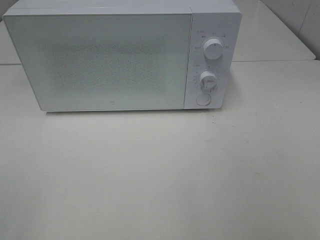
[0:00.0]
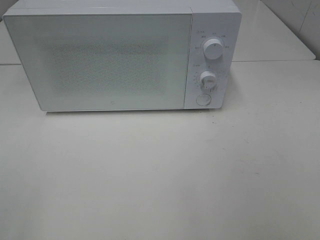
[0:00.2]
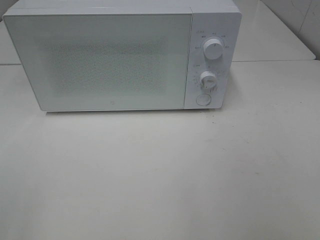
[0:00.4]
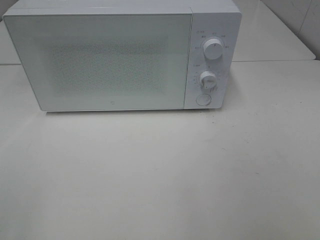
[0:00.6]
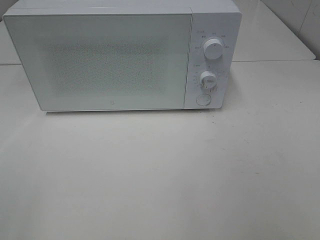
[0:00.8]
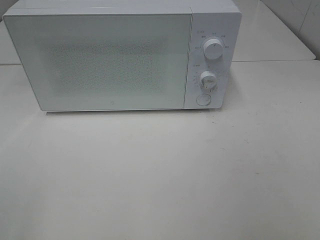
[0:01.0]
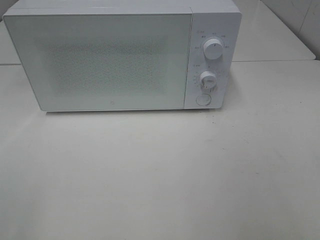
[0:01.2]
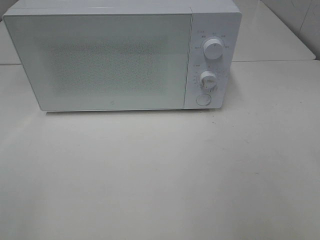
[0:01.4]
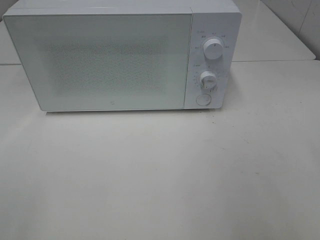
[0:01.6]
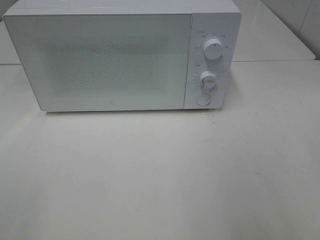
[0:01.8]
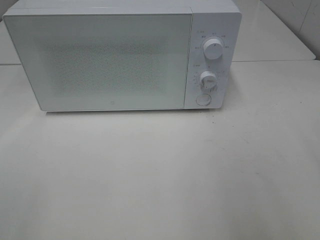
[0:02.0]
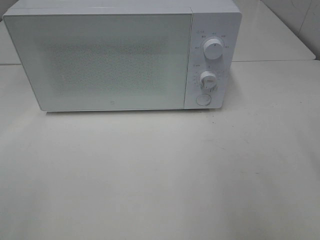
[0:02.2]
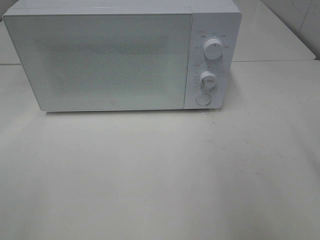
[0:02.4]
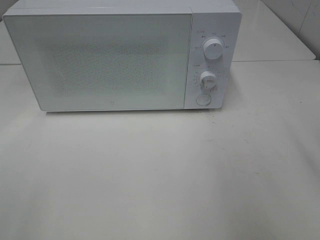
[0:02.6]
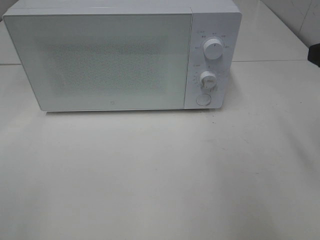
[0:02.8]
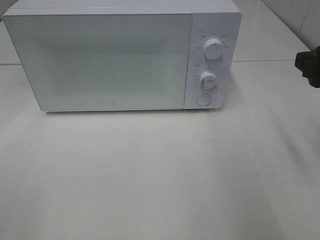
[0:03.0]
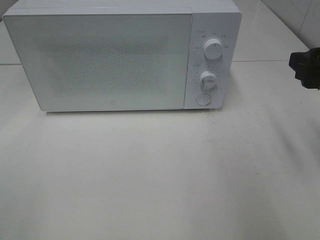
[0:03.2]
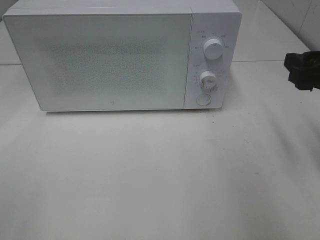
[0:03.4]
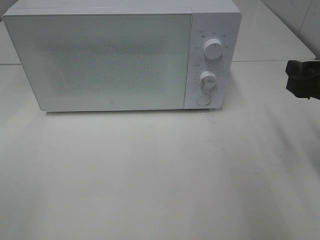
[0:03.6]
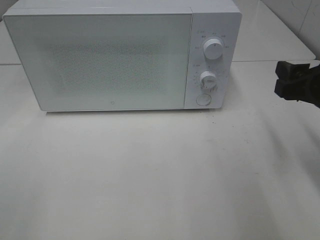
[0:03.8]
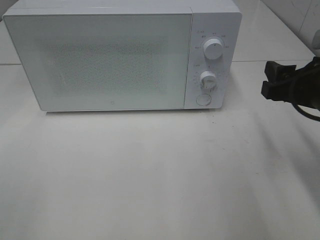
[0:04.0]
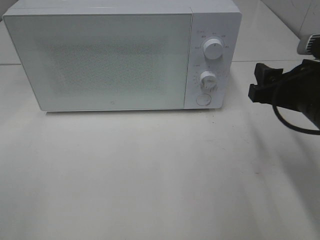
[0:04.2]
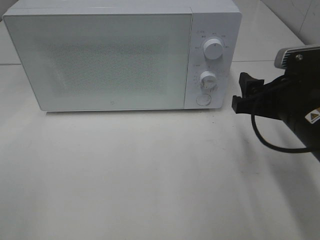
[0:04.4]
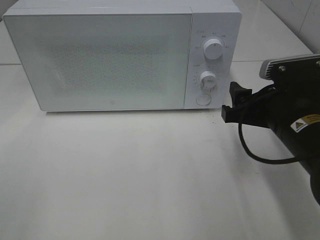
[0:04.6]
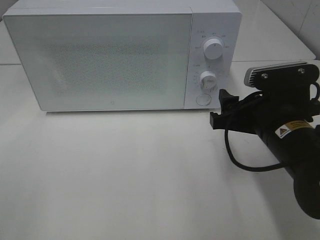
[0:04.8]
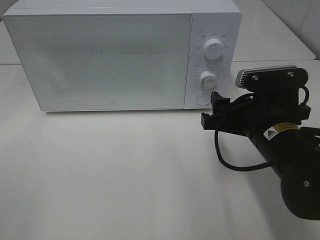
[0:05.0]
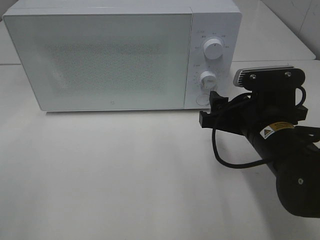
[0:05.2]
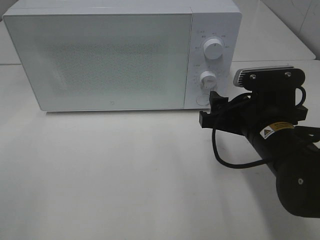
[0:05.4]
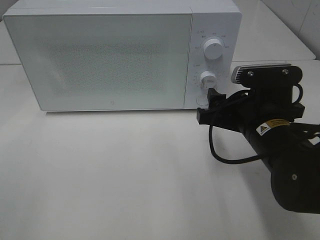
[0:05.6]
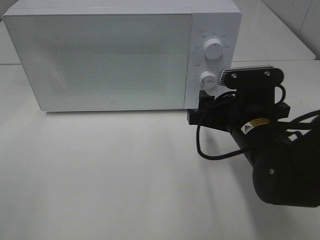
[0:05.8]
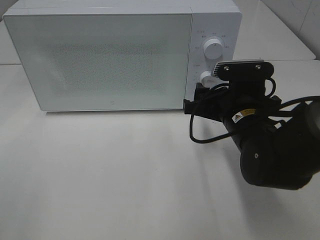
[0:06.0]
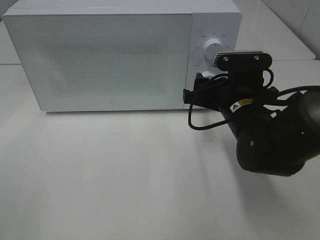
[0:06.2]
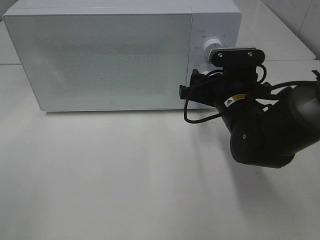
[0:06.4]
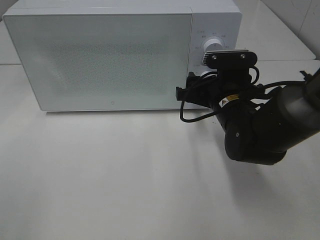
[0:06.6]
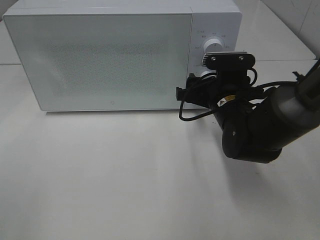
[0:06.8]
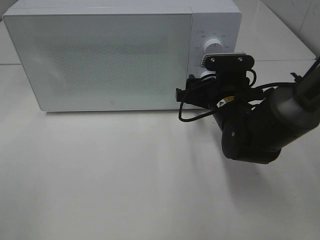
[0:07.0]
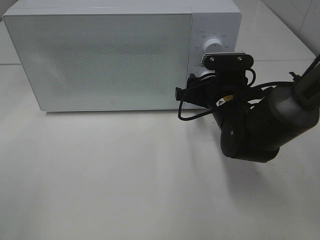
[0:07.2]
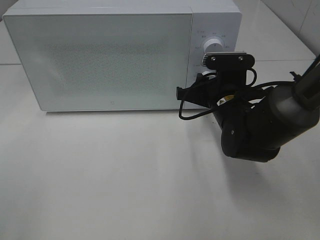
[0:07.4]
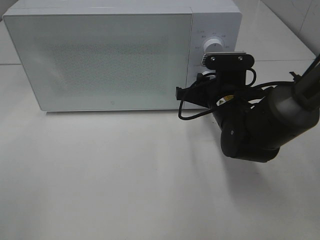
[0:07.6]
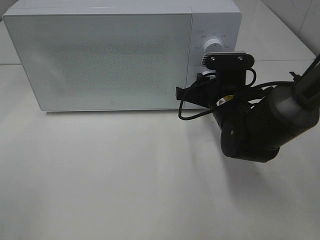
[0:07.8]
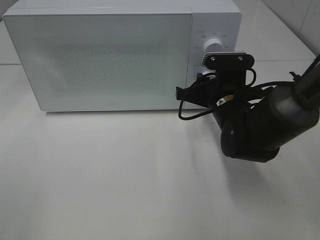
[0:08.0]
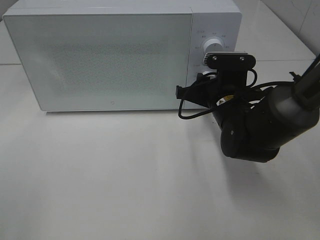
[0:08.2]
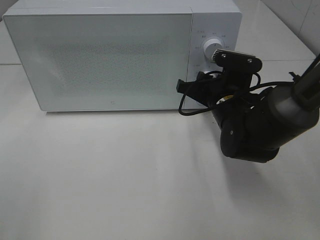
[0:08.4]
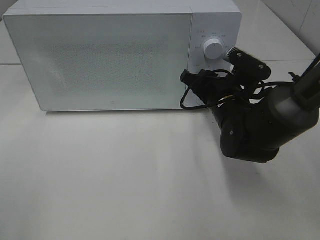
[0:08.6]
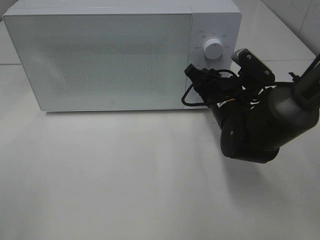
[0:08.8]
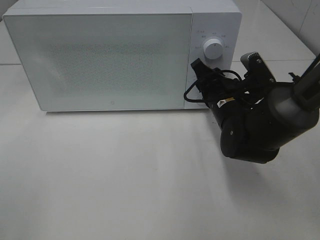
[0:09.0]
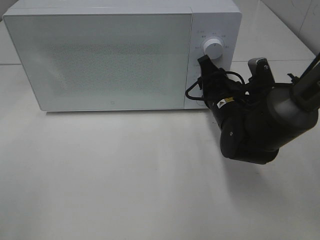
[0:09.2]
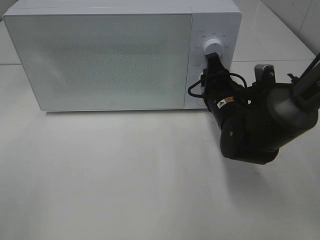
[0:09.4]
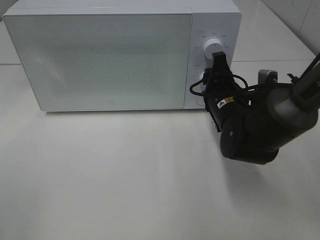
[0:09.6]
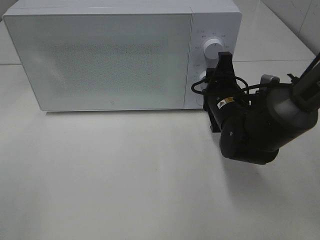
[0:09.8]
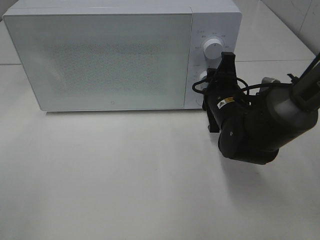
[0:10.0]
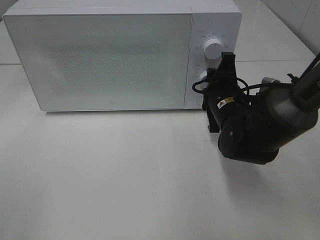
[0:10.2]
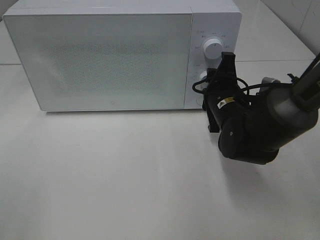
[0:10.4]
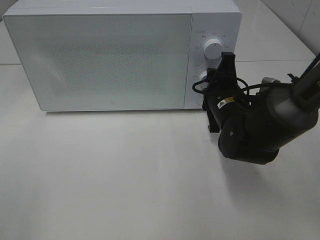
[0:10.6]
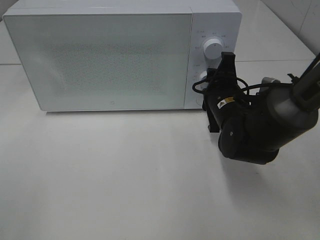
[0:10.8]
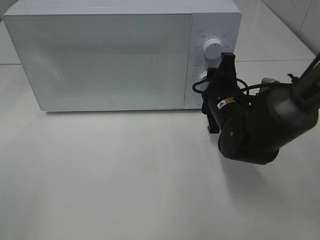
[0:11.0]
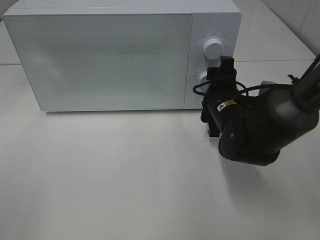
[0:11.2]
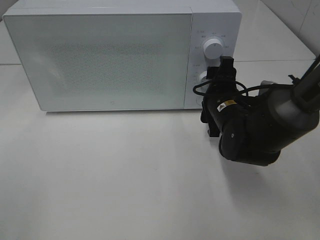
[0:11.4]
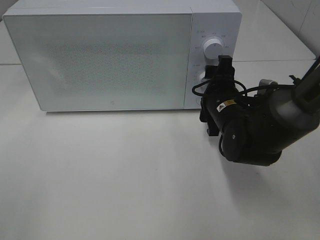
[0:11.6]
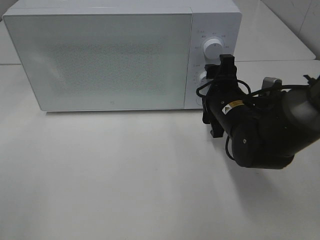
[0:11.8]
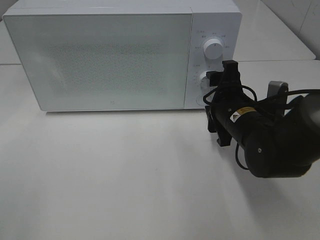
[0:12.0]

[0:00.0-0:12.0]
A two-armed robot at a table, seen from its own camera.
Task of the whole recording: Heat Sandwich.
Step, 0:00.0 to 0:11.6: Right hand: twist timer button.
0:01.6 to 0:03.0: The right gripper goes some 15 cm forward and downward.
0:03.0 to 0:04.4: The right gripper shifts approximately 10 cm downward and to the left.
0:04.4 to 0:06.0: The right gripper travels to the left by about 5 cm.
0:06.0 to 0:07.6: The right gripper is displaced forward by about 5 cm, and closes its fingers.
0:10.4 to 0:12.0: The right gripper opens up.

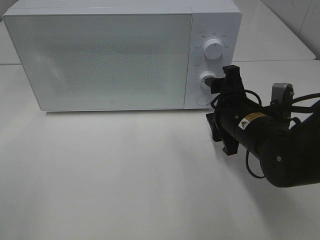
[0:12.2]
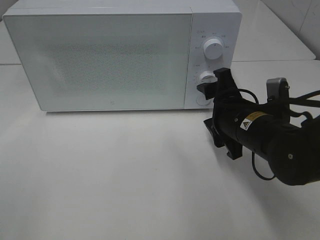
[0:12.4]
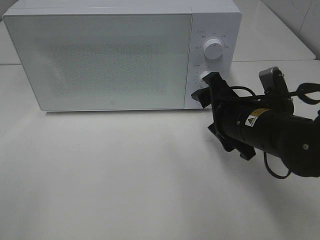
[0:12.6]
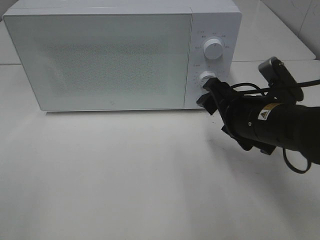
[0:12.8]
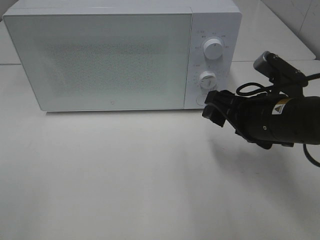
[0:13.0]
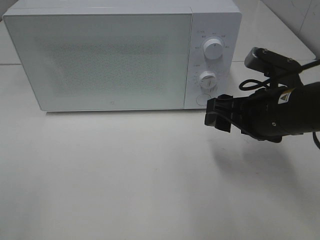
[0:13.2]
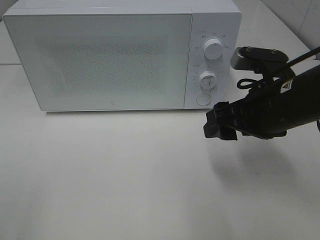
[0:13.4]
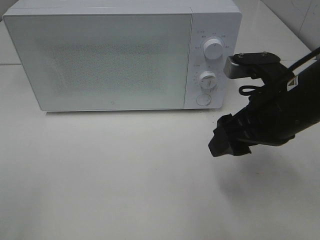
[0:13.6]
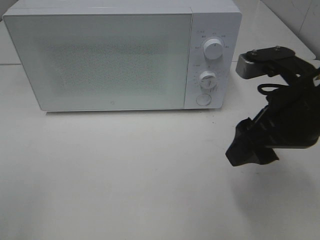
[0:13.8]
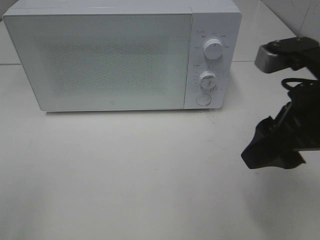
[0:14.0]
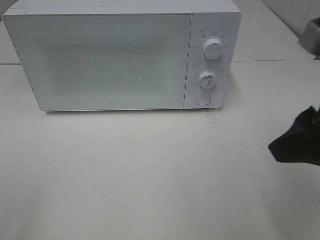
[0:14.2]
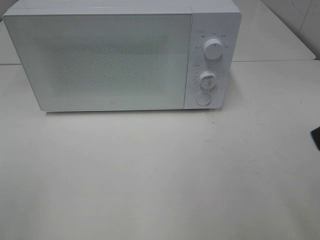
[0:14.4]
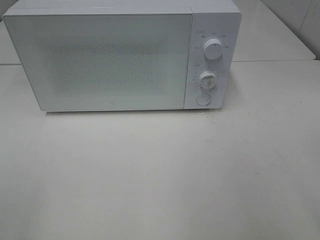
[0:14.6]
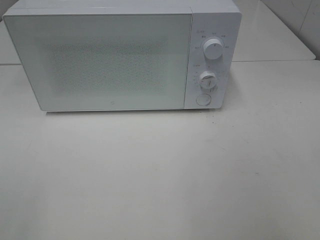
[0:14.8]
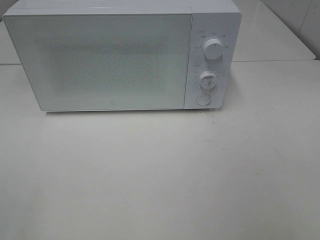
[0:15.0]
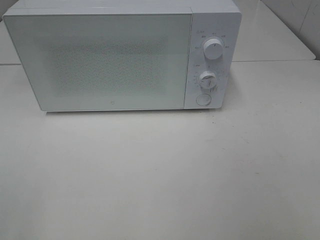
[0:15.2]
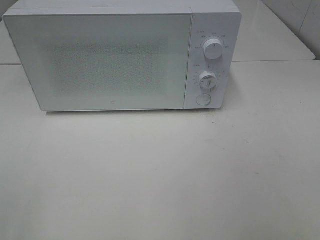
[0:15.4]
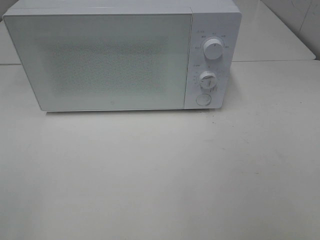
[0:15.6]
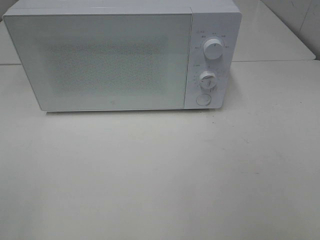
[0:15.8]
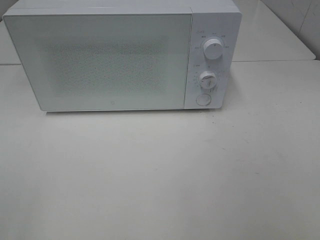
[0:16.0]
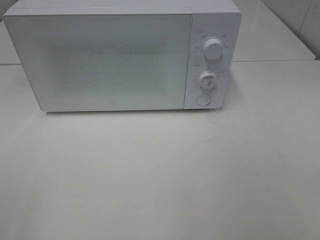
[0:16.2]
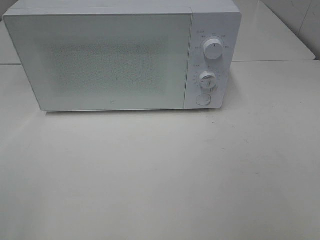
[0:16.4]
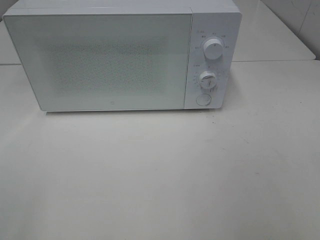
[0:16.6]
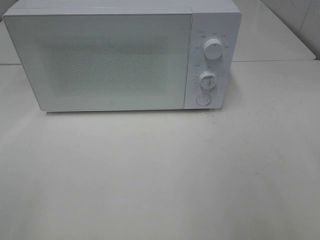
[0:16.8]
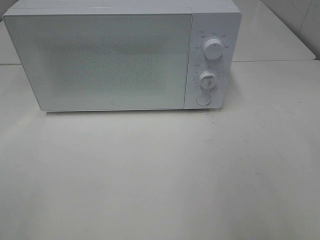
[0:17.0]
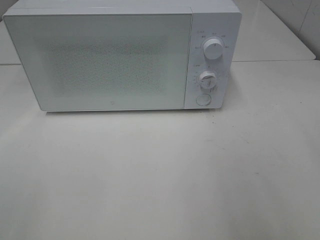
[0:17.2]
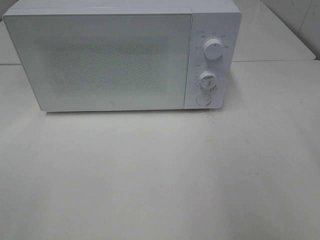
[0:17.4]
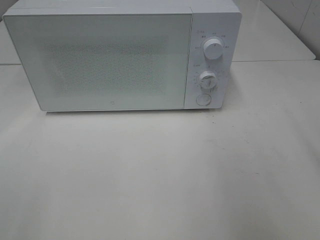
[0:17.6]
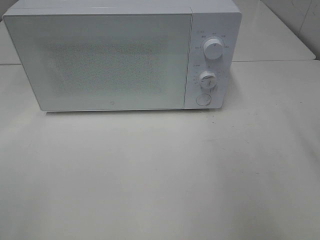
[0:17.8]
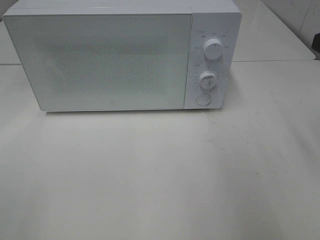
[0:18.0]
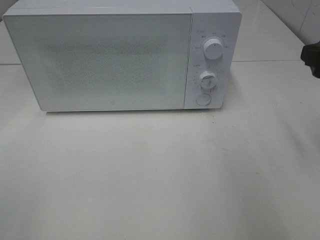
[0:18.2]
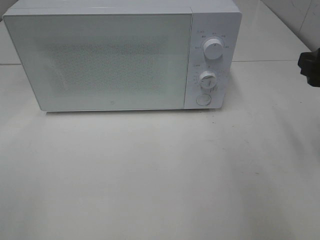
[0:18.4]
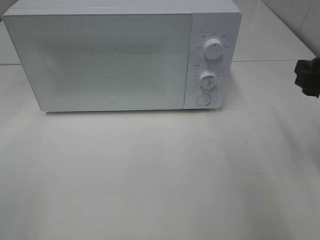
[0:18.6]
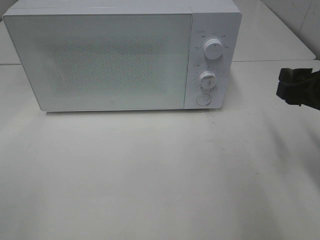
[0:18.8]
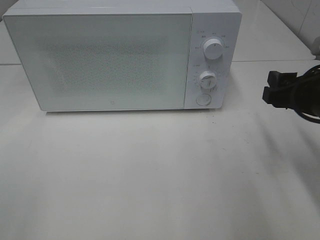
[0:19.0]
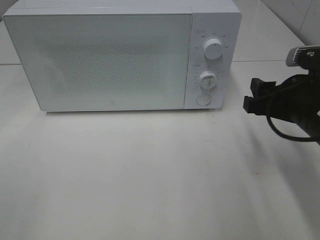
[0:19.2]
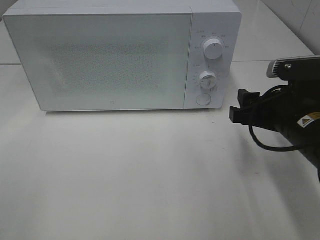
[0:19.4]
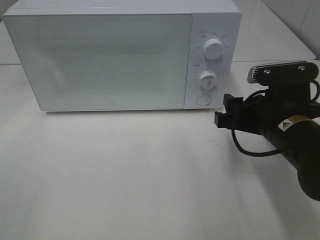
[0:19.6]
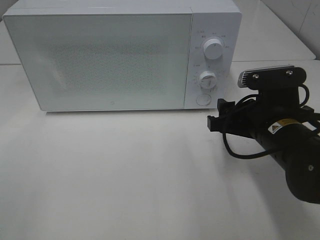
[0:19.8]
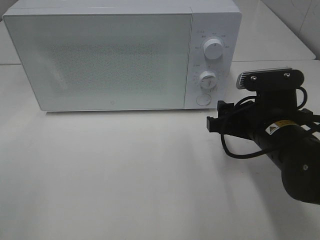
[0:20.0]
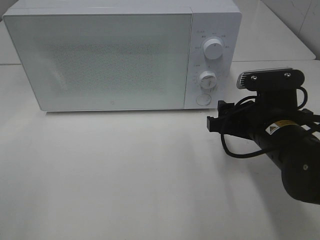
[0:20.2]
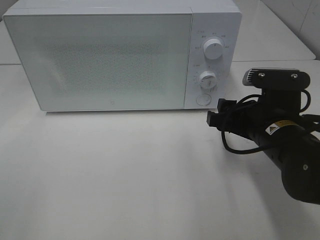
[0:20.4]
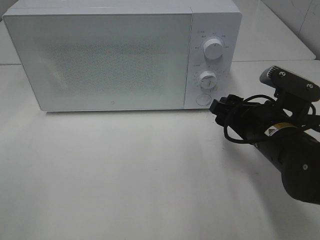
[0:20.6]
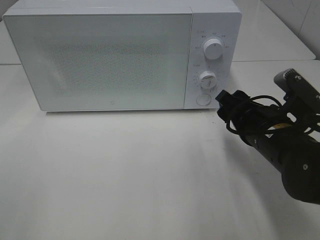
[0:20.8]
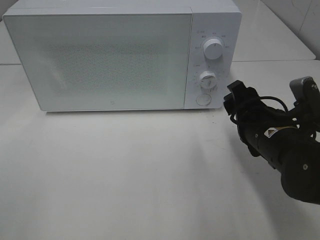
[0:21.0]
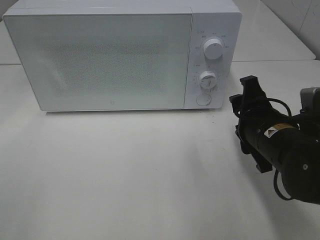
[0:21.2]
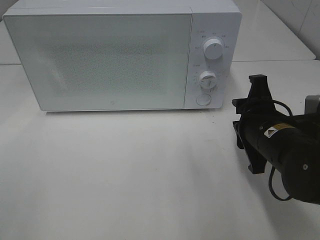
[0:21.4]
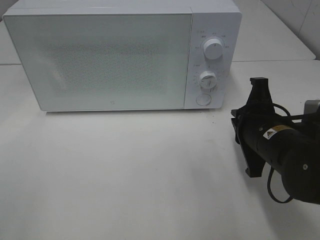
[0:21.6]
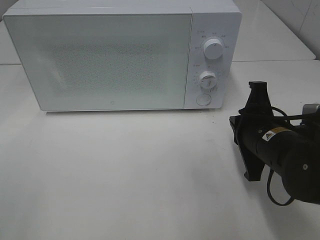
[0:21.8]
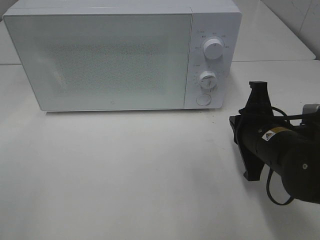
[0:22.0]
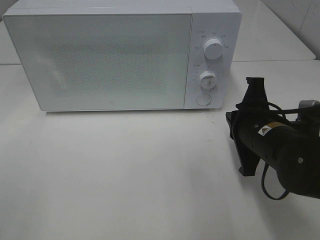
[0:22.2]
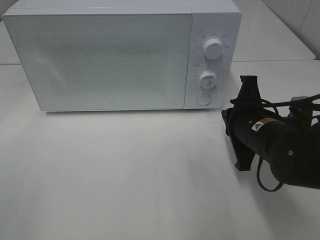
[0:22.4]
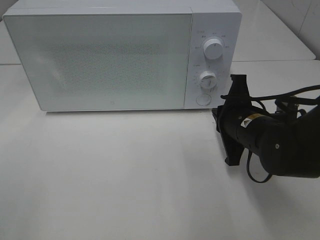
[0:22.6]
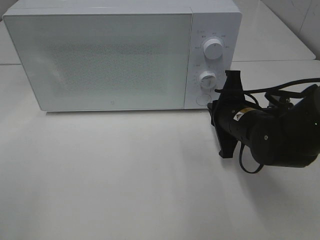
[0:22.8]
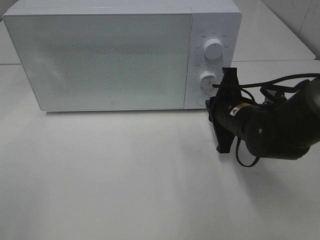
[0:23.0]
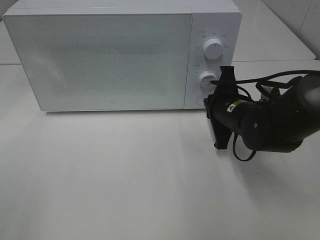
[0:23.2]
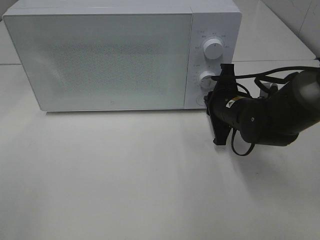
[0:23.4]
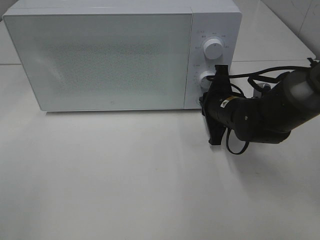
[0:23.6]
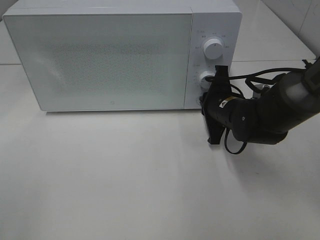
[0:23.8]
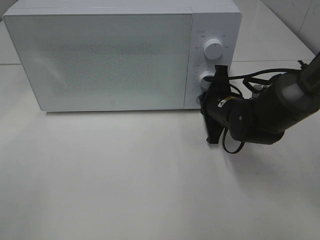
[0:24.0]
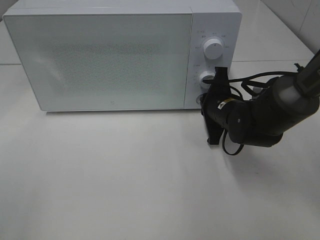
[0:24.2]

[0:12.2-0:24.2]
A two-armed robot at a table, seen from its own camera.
Task of the whole recording: Heat Sandwich.
0:12.2 to 0:13.8: The right gripper heads upward and backward, covering approximately 15 cm.
0:13.8 to 0:15.2: The right gripper is displaced backward and to the right by about 20 cm.
0:16.6 to 0:18.2: The right gripper heads forward, covering some 20 cm.
0:18.2 to 0:19.8: The right gripper moves to the left and downward, some 15 cm.
0:21.2 to 0:22.6: The right gripper closes up.
0:22.6 to 0:24.2: The right gripper heads forward, covering approximately 10 cm.
